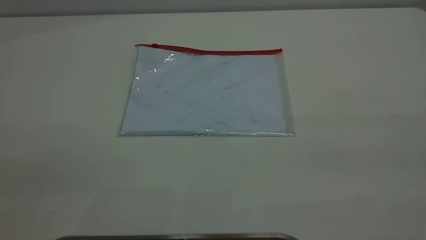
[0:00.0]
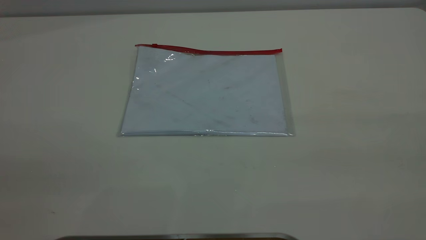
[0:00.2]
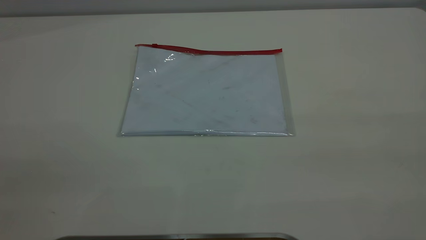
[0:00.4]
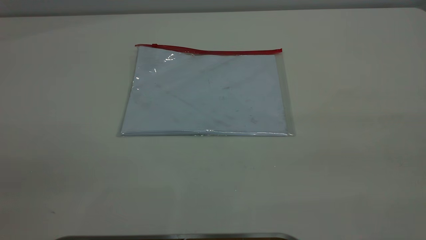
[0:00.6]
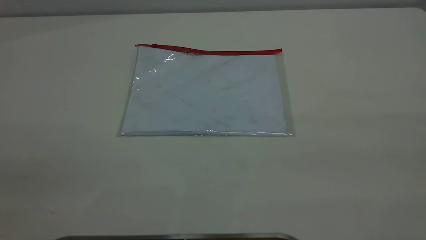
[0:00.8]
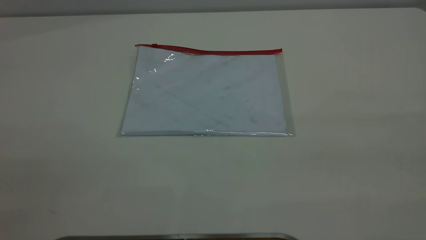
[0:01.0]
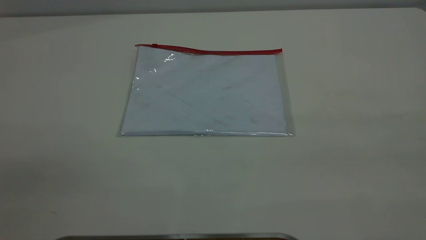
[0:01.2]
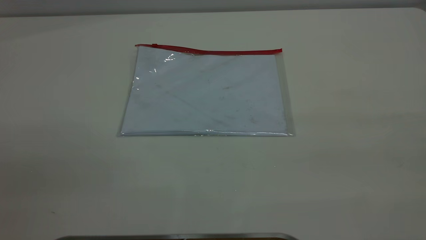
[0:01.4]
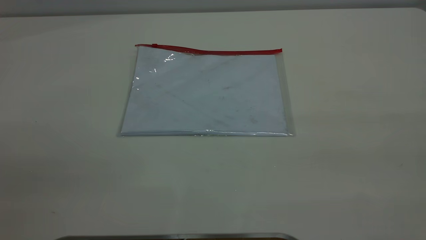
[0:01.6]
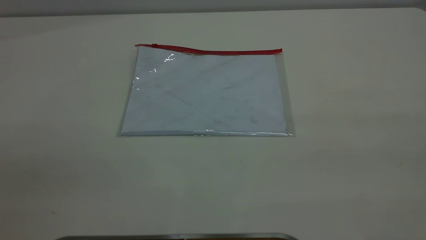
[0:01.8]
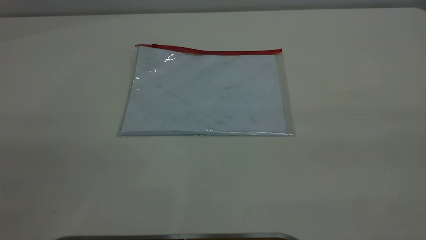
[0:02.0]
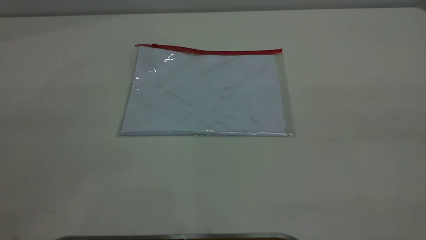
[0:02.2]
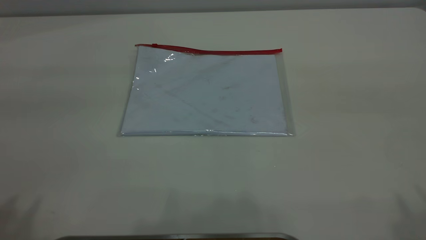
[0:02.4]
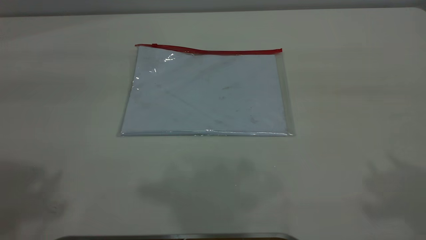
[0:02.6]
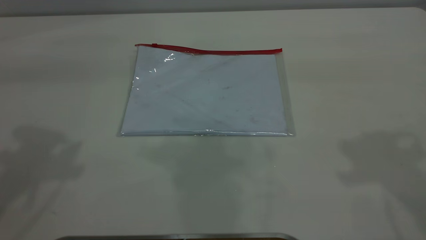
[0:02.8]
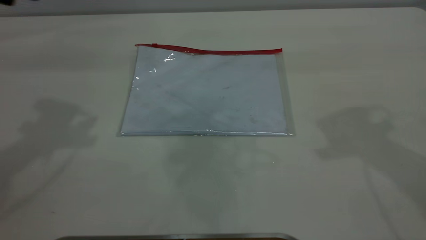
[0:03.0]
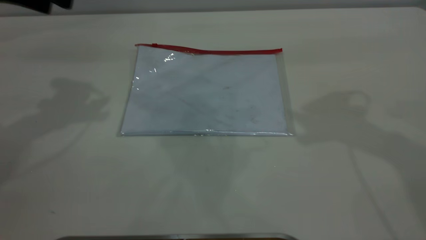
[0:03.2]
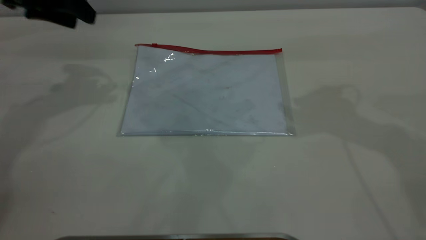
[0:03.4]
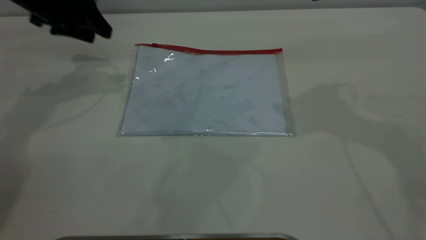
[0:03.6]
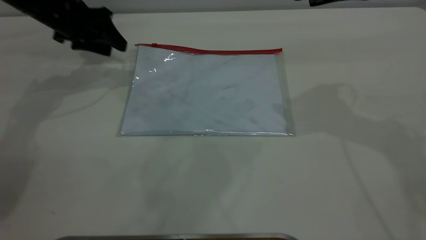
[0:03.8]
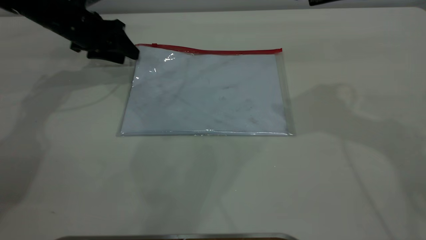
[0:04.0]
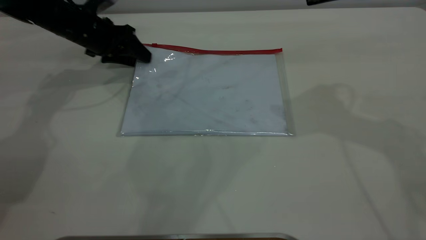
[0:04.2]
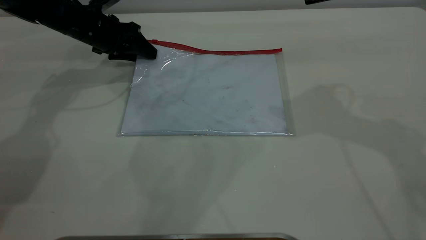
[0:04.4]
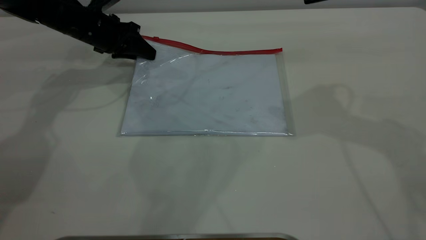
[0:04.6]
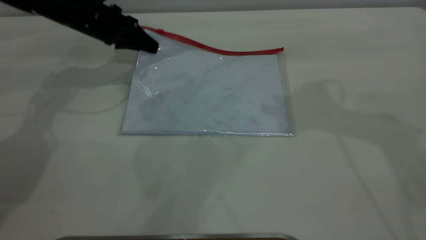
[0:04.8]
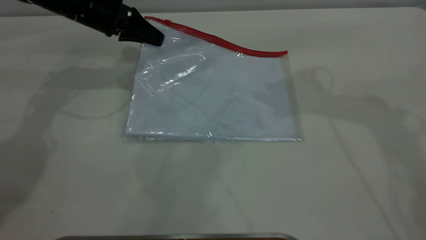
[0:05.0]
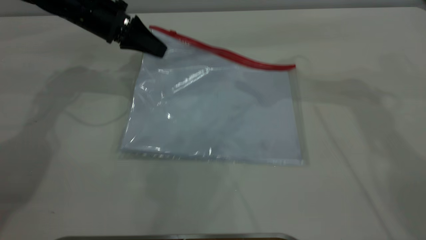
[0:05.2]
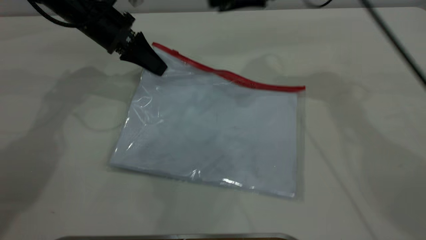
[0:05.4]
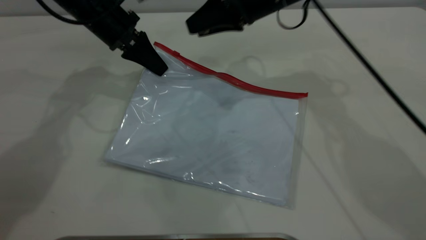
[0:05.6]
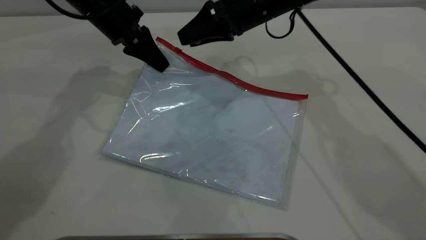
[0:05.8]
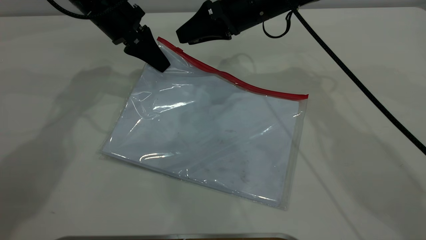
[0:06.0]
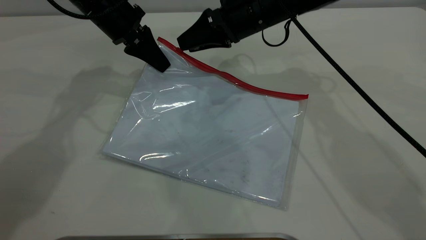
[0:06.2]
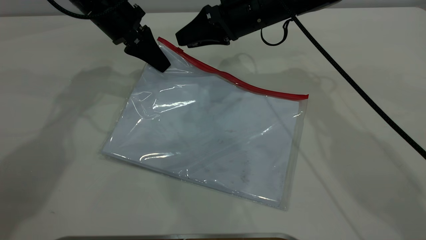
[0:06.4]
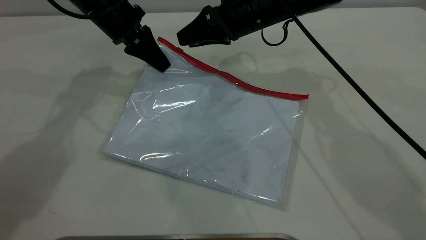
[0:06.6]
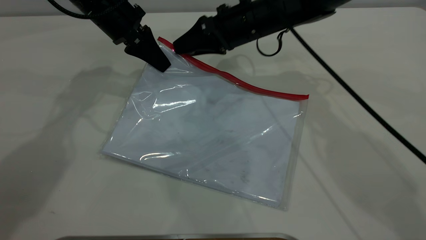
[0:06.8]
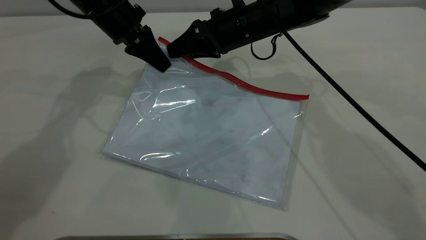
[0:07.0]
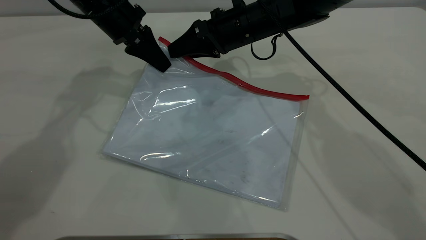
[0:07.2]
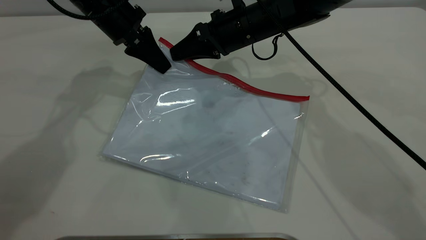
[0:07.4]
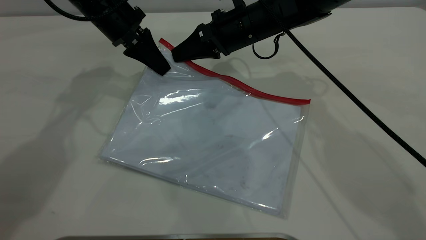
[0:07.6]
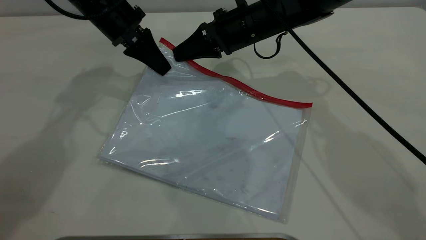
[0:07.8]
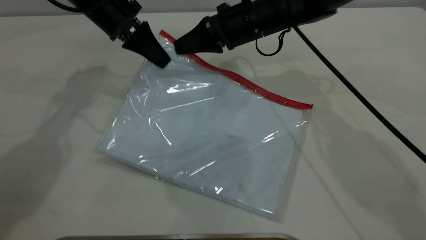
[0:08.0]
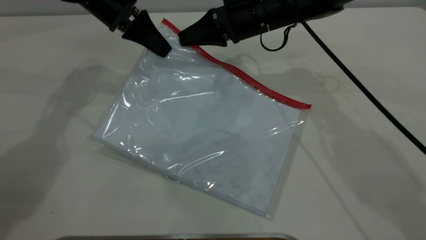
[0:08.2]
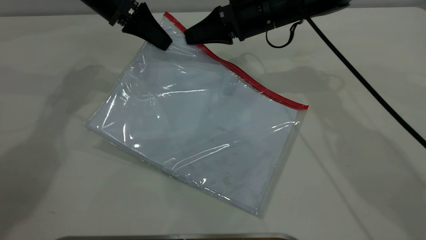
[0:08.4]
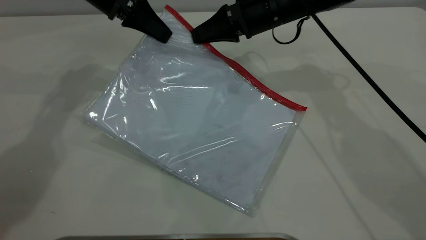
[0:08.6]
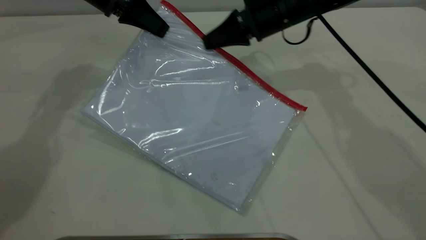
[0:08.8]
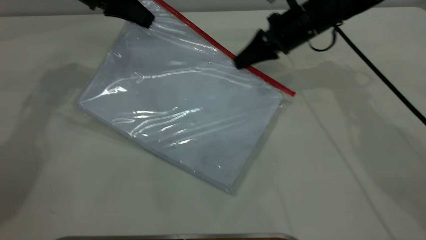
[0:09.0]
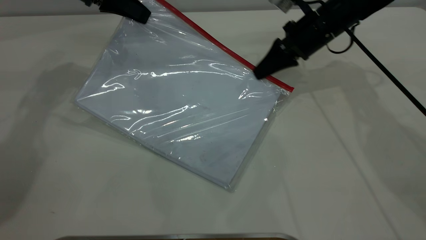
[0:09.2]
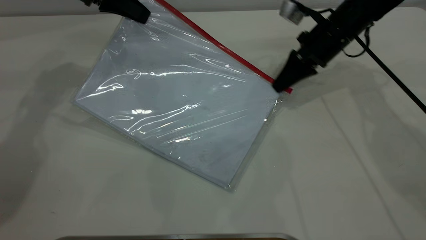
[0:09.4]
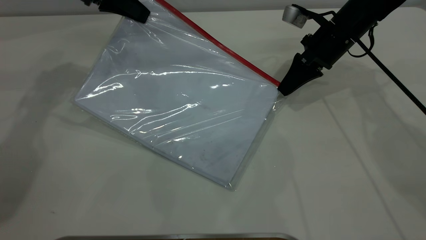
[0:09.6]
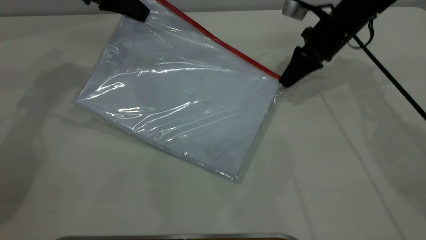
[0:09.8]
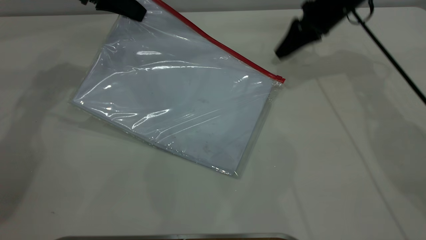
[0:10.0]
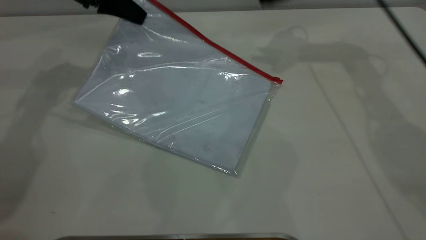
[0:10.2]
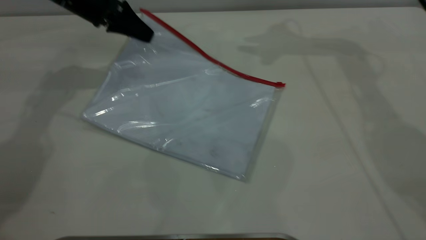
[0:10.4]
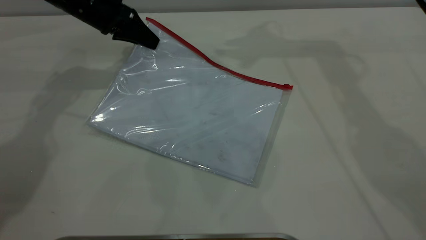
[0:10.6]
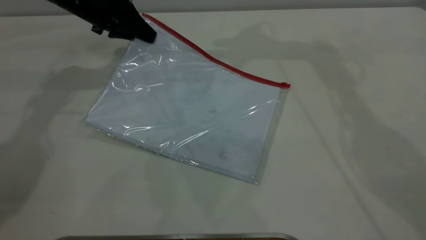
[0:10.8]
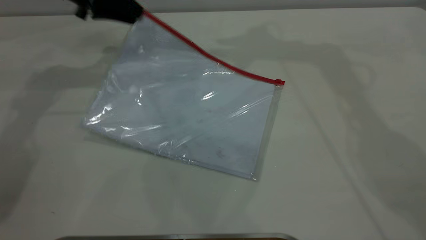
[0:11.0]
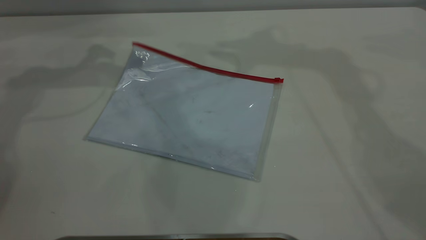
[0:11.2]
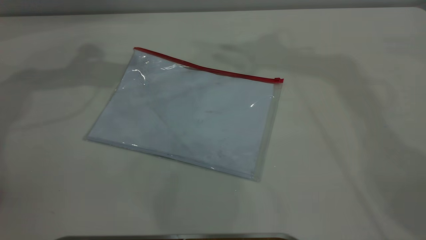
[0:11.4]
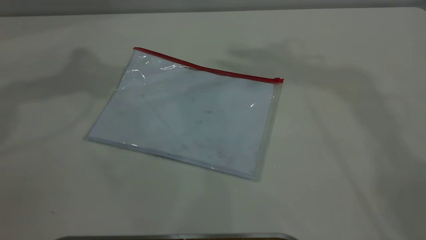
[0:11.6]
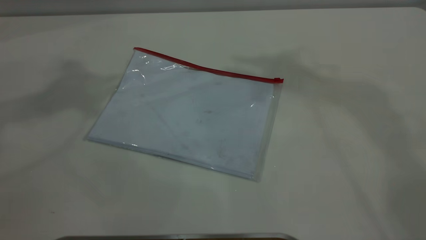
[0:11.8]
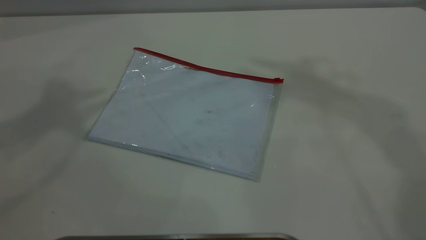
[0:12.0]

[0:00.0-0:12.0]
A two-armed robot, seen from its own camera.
Step, 0:00.0 to 0:04.8: Pick up the transparent plastic bag with the left gripper.
Step, 0:05.0 to 0:09.8: Pulling up the zipper on the transparent plastic bag with the right gripper to close it.
Step, 0:10.2 to 0:11.0: Place the transparent plastic bag.
0:00.0 to 0:01.6: Neither gripper changes place.
0:03.0 to 0:04.4: The left gripper is displaced downward and forward by roughly 30 cm. Meanwhile the right gripper changes place by some 5 cm.
0:04.4 to 0:06.0: The left gripper travels to the right and upward by approximately 10 cm, and closes. Meanwhile the right gripper goes about 20 cm to the left, downward and forward.
0:06.0 to 0:07.6: The right gripper closes.
0:07.6 to 0:09.0: The right gripper moves to the right, roughly 10 cm, while the left gripper goes some 5 cm to the left.
0:09.0 to 0:10.4: The right gripper shifts about 20 cm upward and forward, and opens up.
0:10.4 to 0:12.0: The left gripper travels upward by about 40 cm, and opens. Meanwhile the right gripper heads upward and backward, covering about 40 cm.

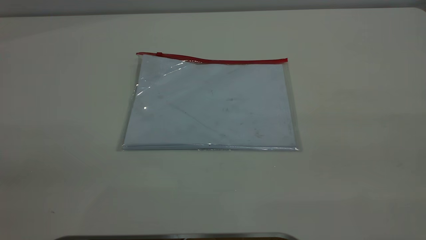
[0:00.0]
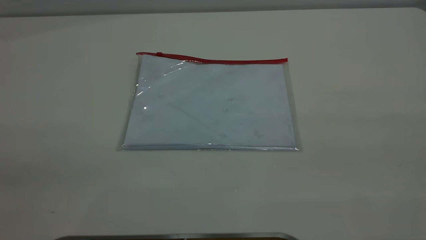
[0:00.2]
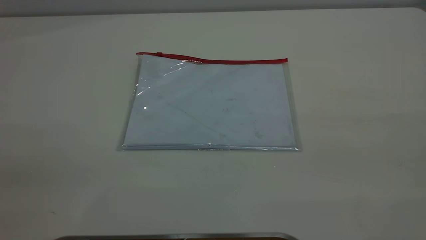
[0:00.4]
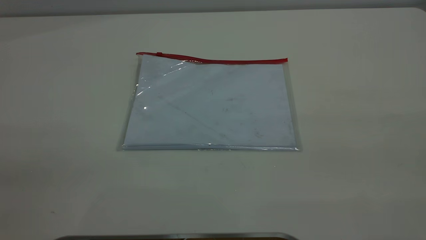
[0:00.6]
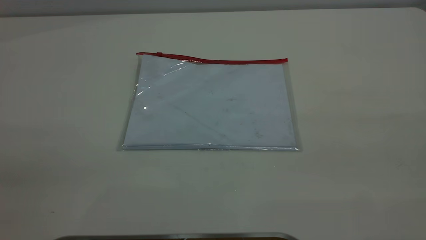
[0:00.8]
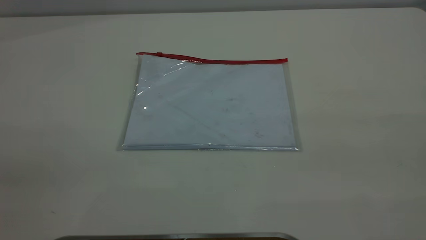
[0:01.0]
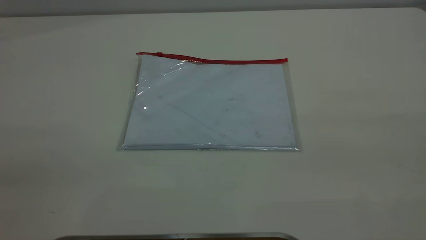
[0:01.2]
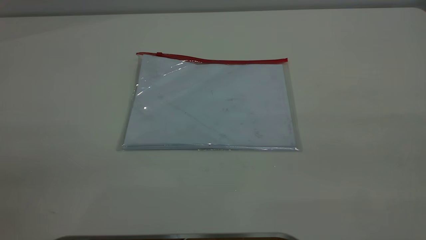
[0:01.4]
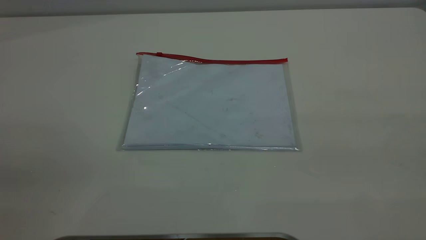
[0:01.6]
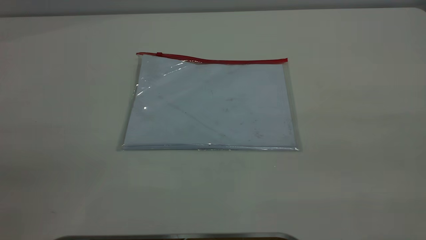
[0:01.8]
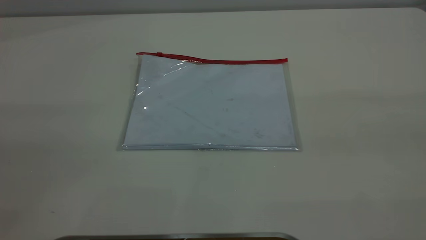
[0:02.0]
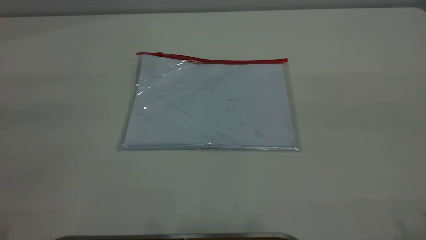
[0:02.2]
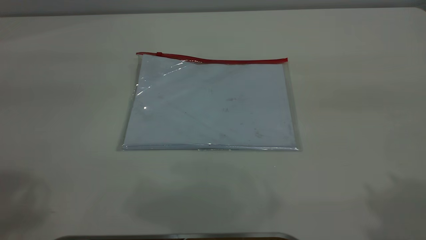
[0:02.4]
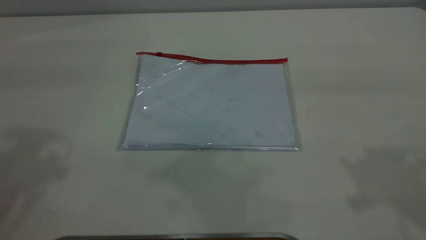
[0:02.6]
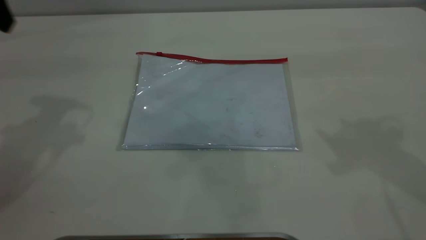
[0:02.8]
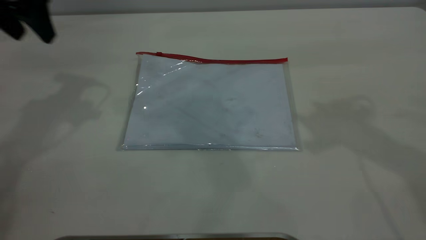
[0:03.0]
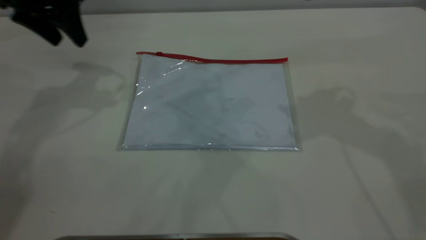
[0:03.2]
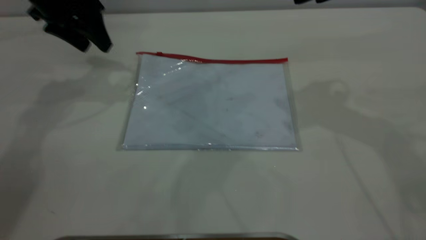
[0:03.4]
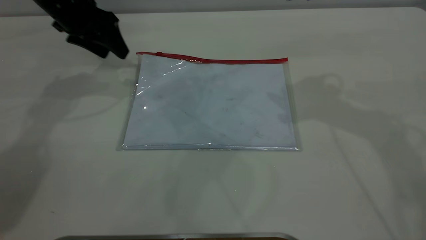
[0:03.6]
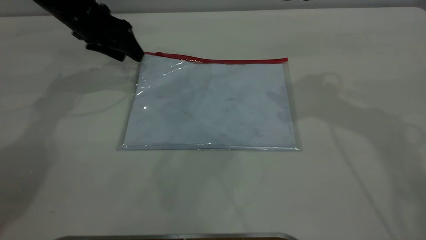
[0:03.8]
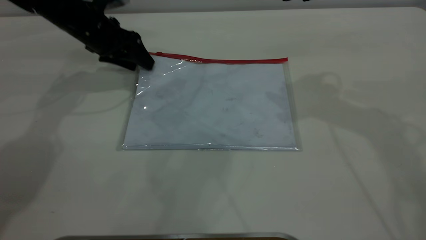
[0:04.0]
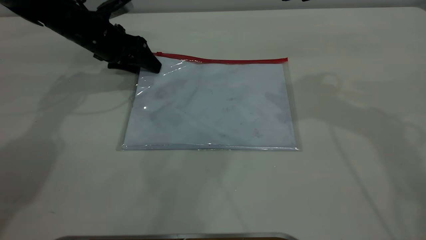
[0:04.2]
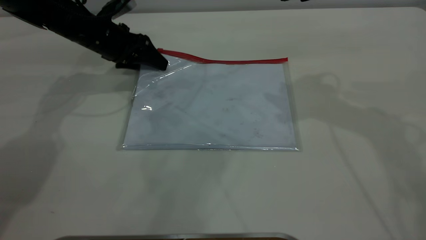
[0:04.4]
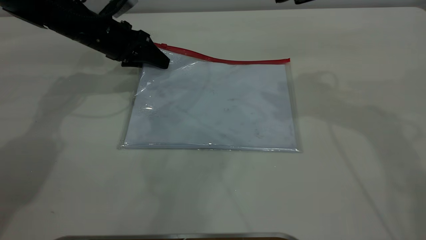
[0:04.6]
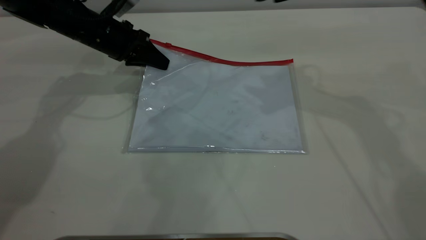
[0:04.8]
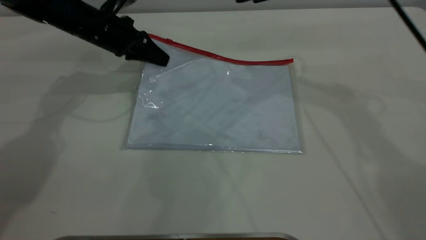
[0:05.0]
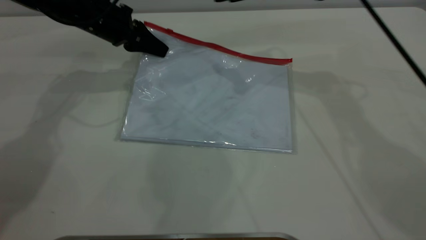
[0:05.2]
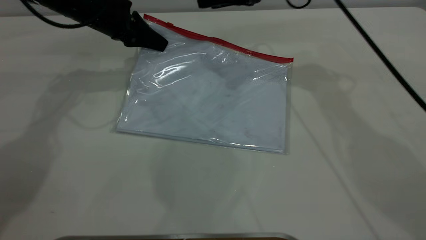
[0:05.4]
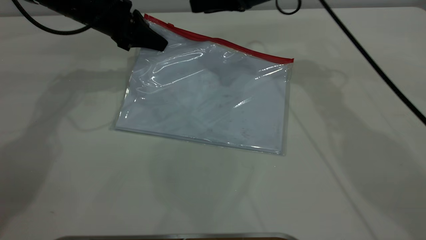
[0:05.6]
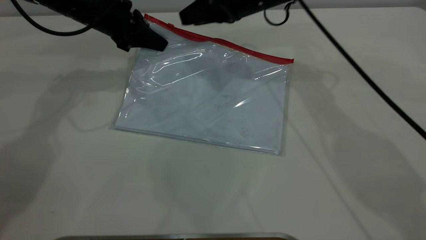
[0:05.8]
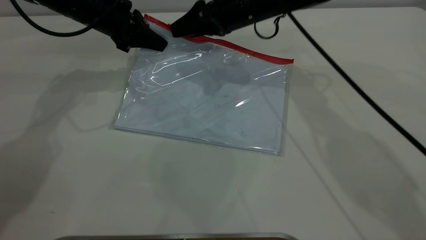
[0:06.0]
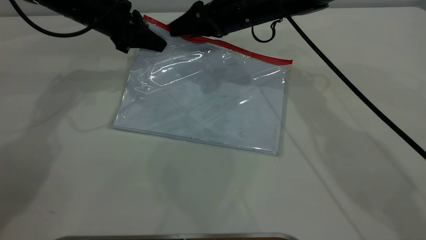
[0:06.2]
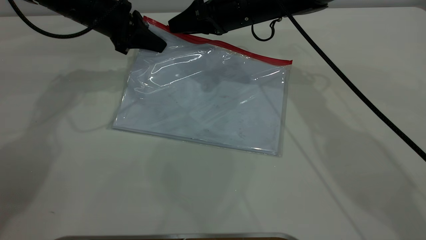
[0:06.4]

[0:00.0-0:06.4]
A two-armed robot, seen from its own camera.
Step, 0:00.0 to 0:05.2: Pick up the transparent plastic bag with the left gripper.
0:00.0 to 0:01.6: Both grippers stay put.
0:01.6 to 0:03.2: The left gripper is displaced forward by about 40 cm.
0:03.2 to 0:04.8: The right gripper heads forward, covering approximately 5 cm, while the left gripper shifts about 15 cm downward, and closes up.
0:04.8 to 0:06.4: The right gripper heads to the left, downward and forward, covering roughly 20 cm.
